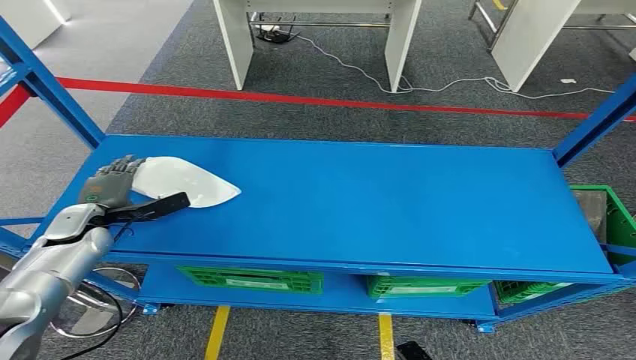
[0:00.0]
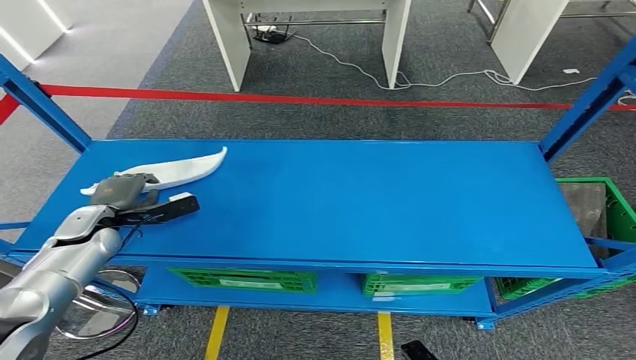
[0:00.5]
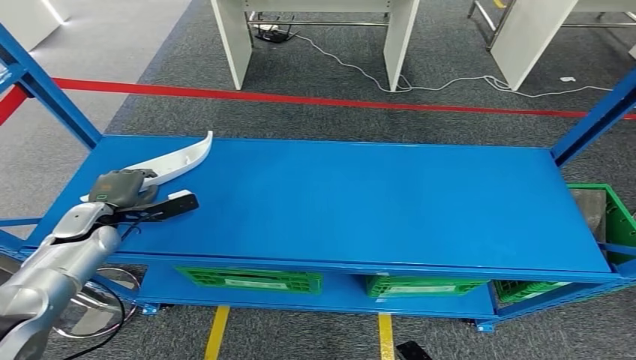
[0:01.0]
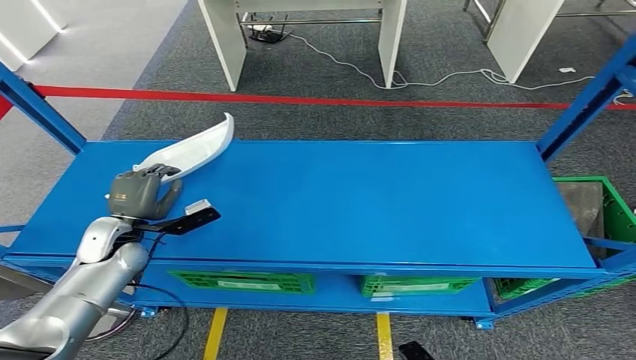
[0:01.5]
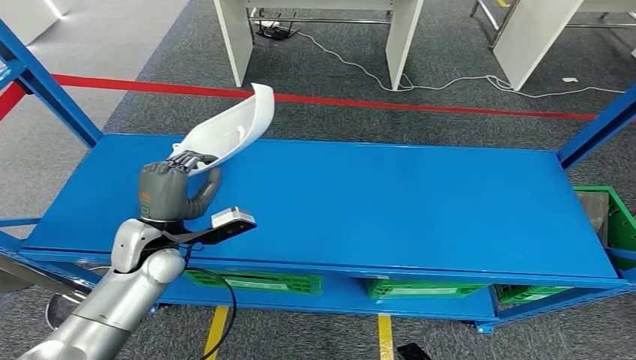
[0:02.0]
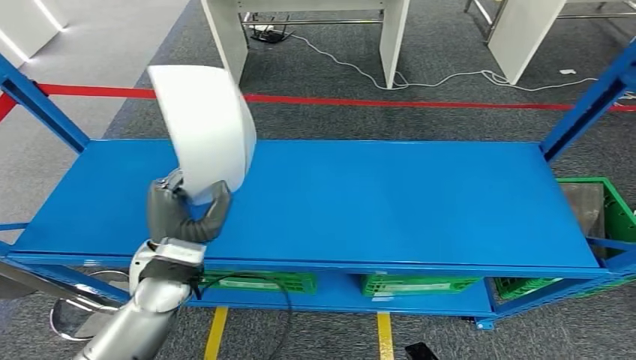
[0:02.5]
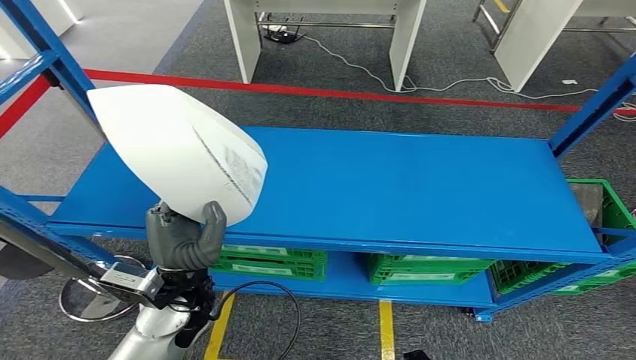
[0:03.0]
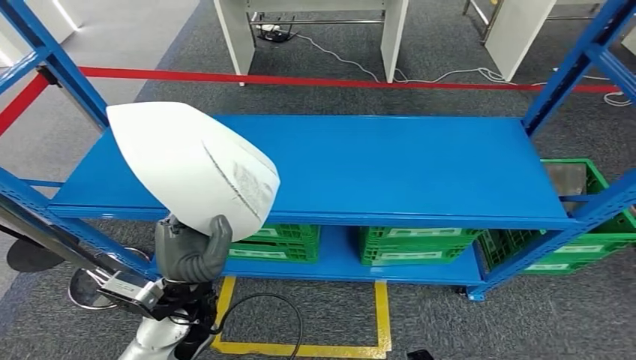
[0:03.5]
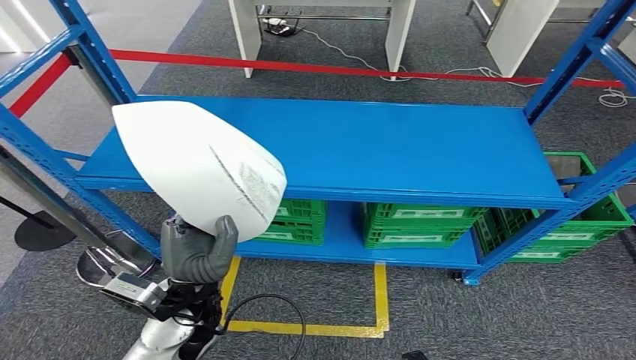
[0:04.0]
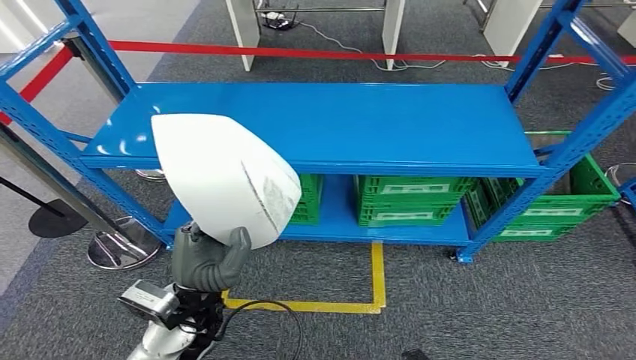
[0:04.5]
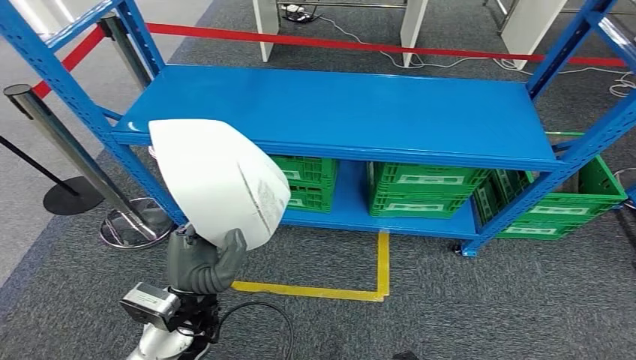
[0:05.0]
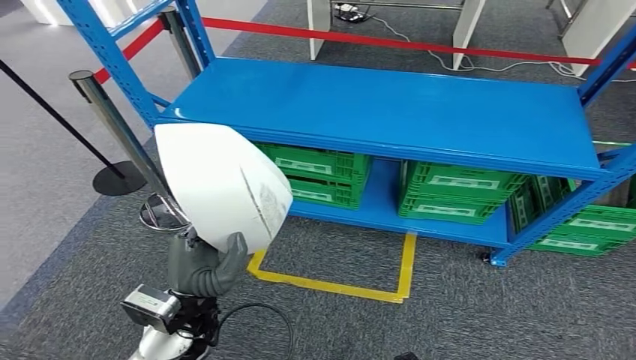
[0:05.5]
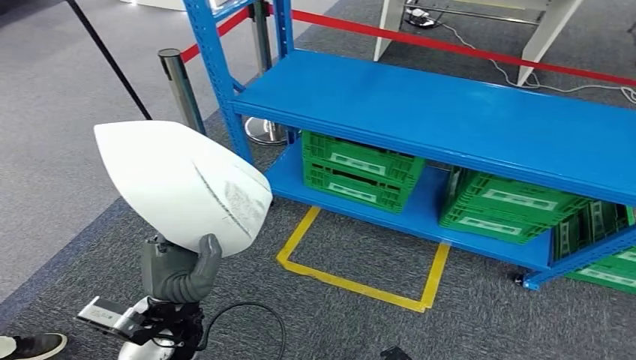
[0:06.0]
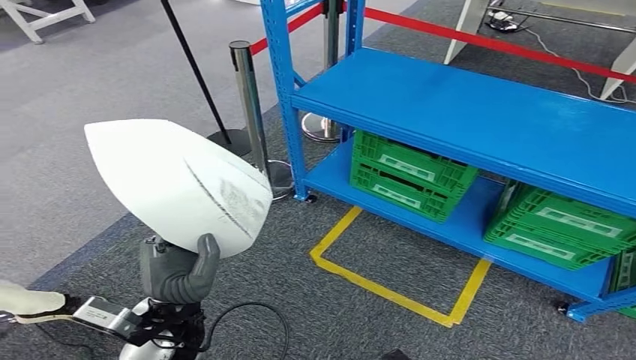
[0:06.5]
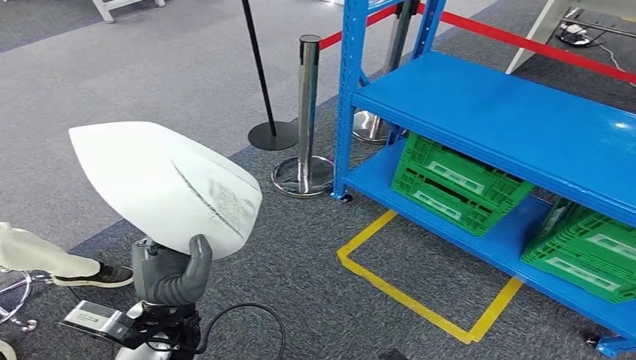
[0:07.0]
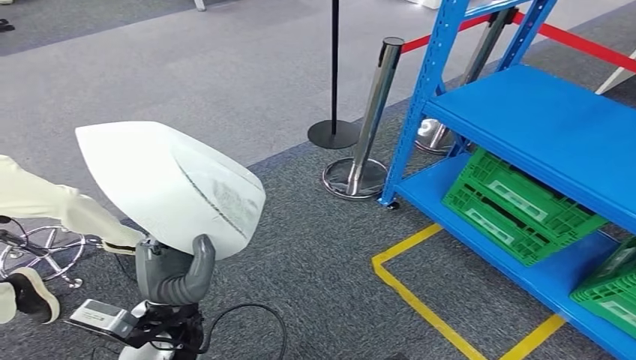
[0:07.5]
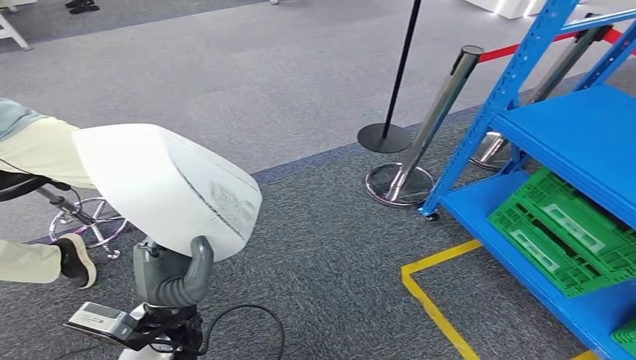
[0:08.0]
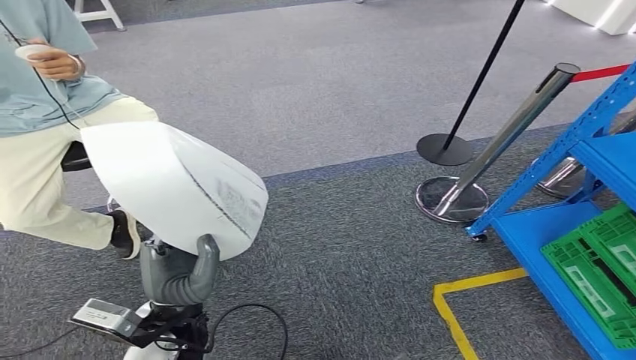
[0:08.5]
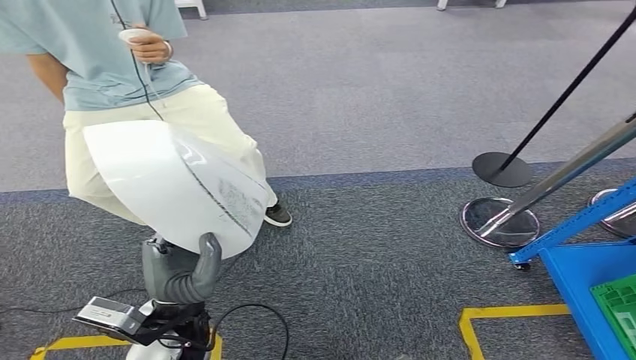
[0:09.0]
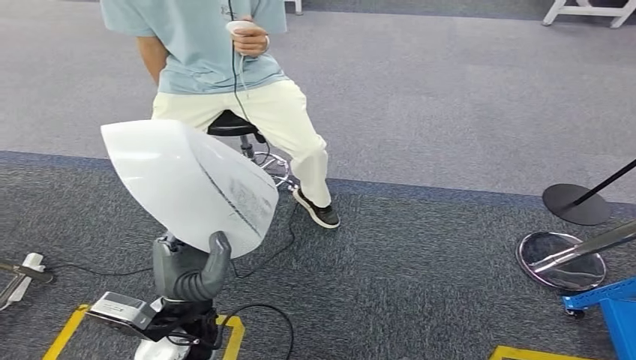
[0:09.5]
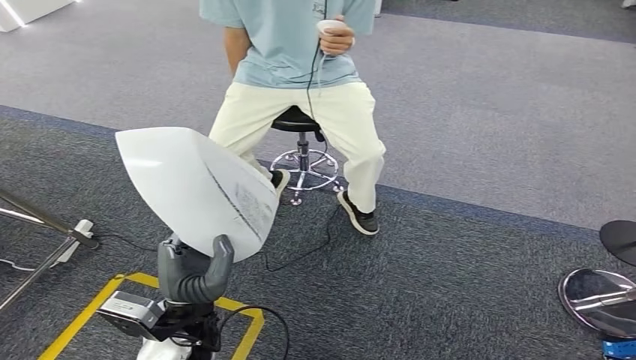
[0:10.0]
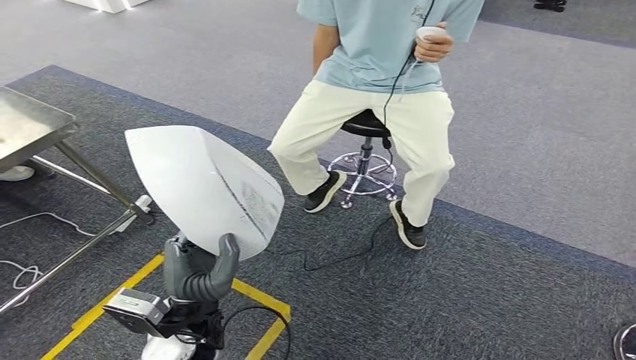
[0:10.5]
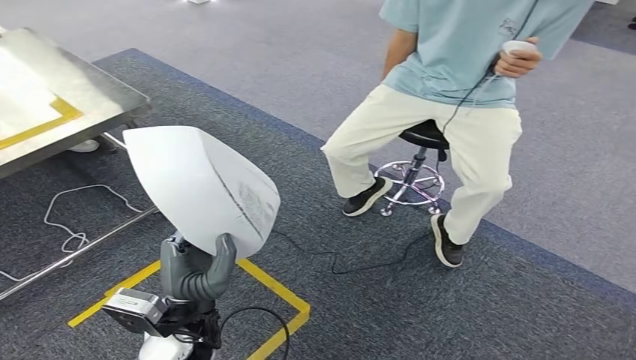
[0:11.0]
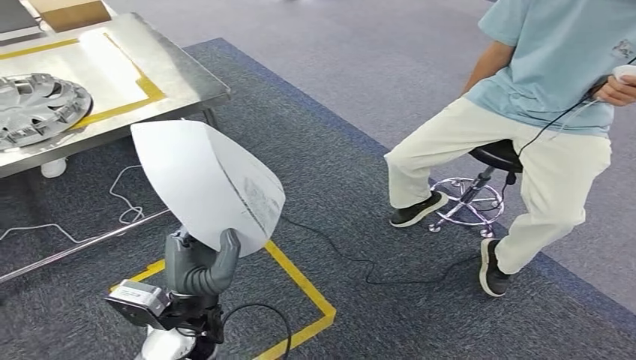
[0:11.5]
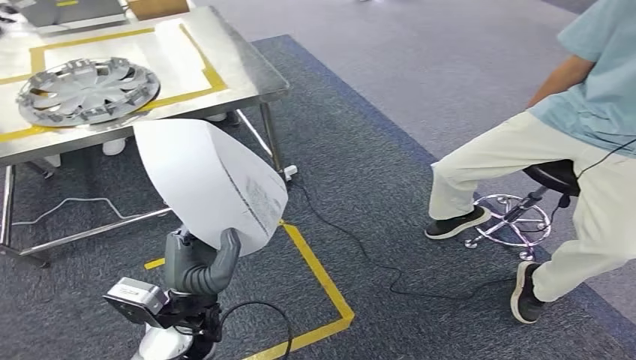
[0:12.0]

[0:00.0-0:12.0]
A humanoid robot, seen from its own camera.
Step, 0:00.0 to 0:03.0: Pick up the small parts from the shelf.

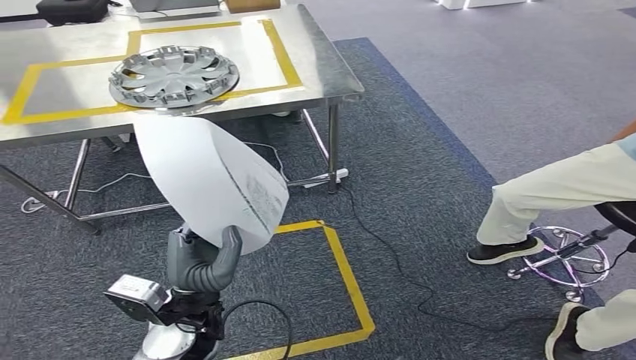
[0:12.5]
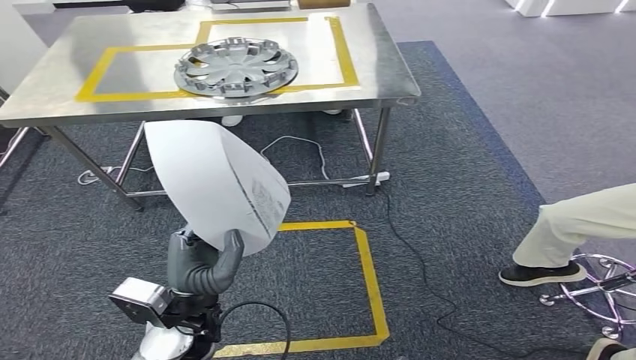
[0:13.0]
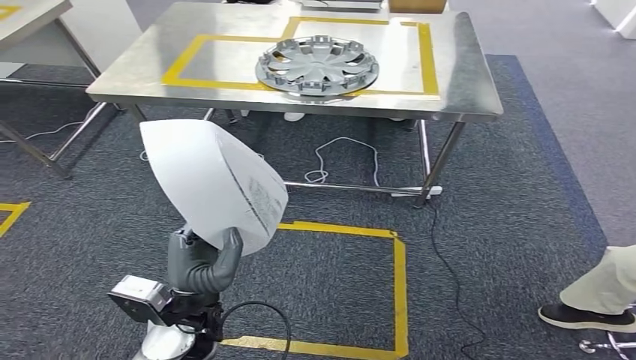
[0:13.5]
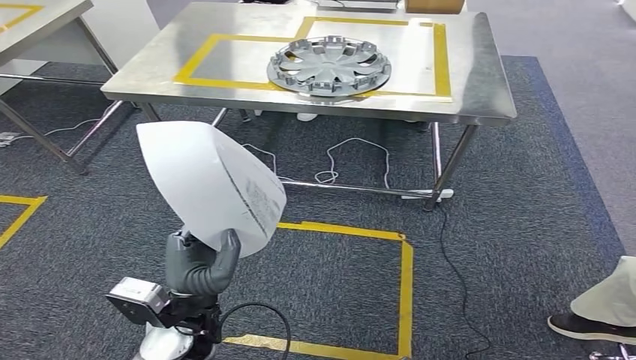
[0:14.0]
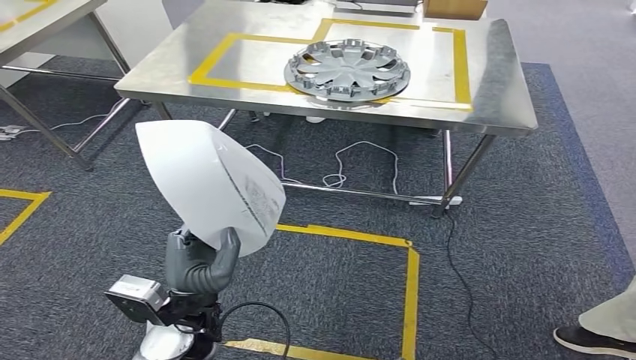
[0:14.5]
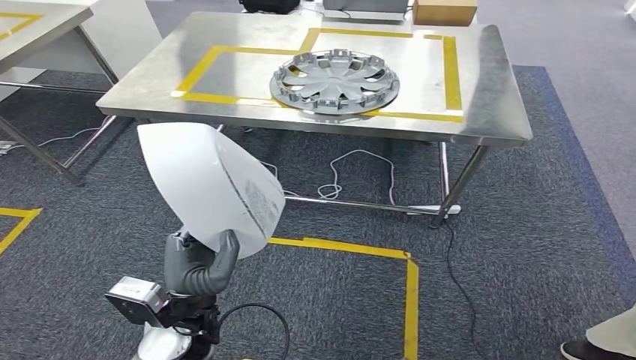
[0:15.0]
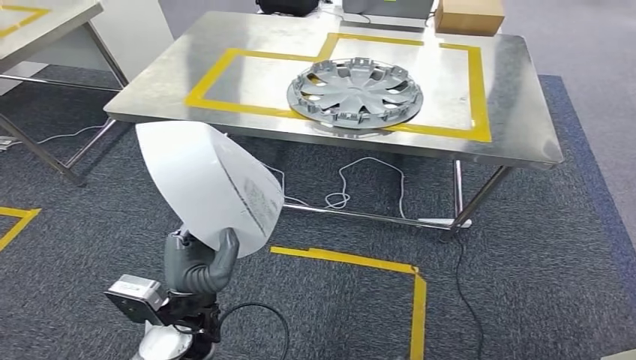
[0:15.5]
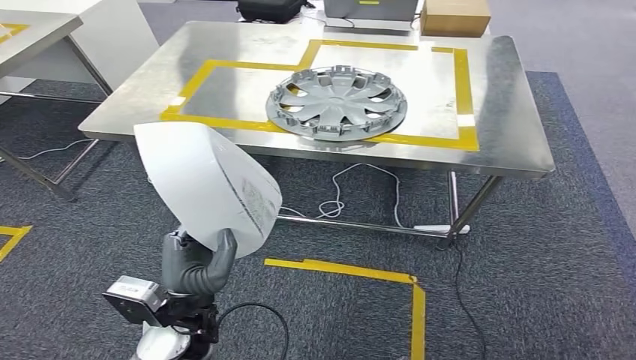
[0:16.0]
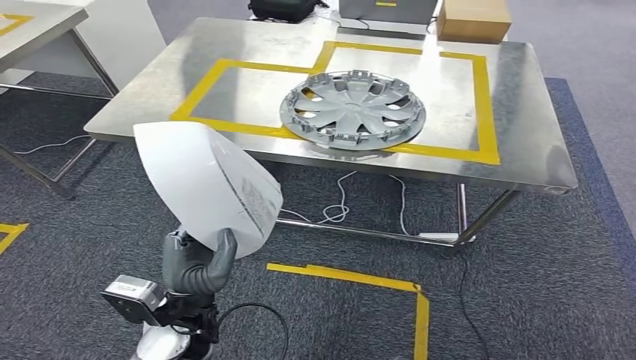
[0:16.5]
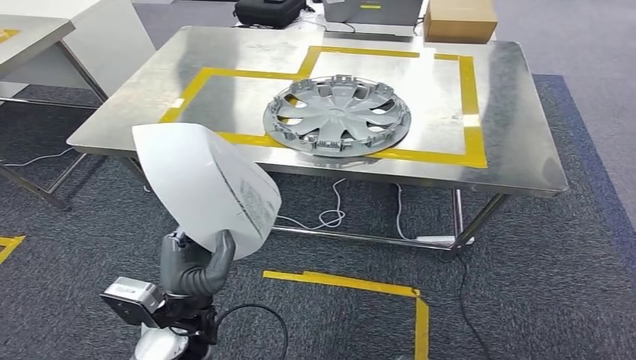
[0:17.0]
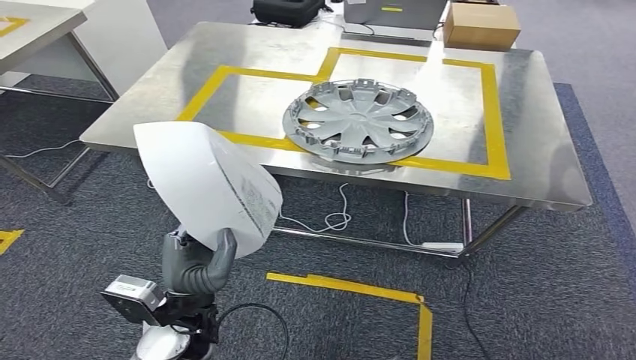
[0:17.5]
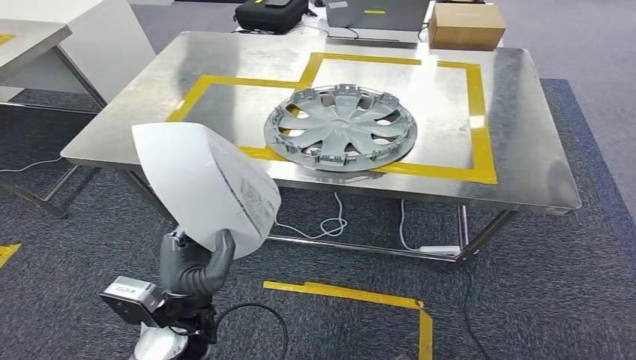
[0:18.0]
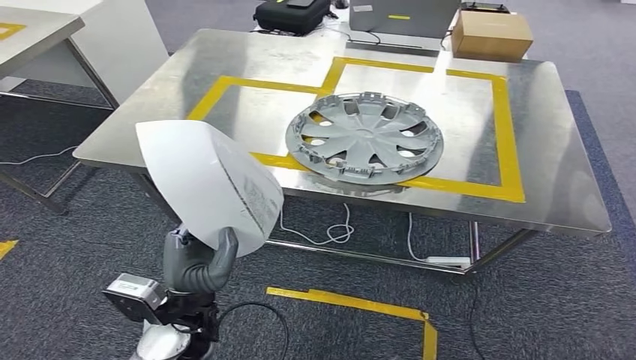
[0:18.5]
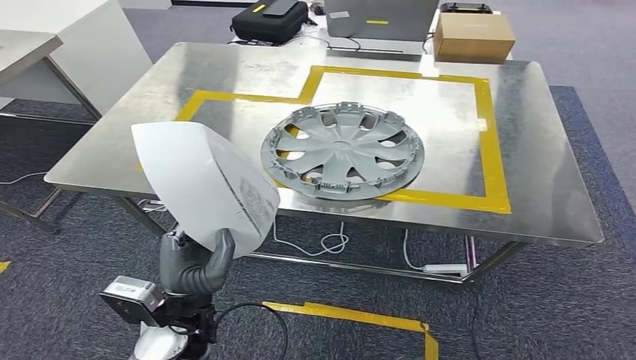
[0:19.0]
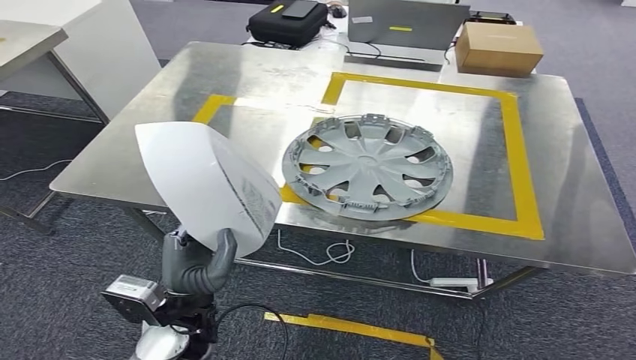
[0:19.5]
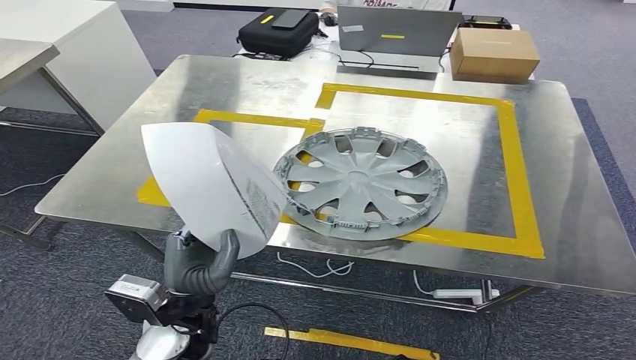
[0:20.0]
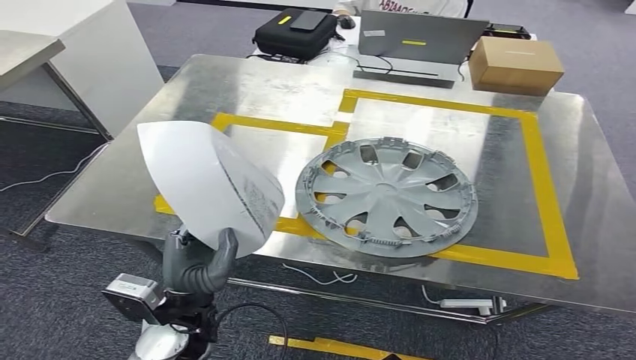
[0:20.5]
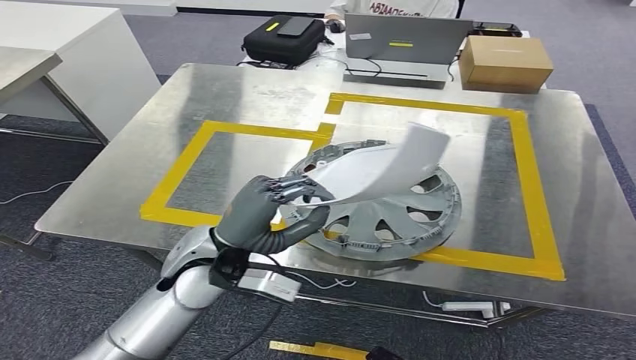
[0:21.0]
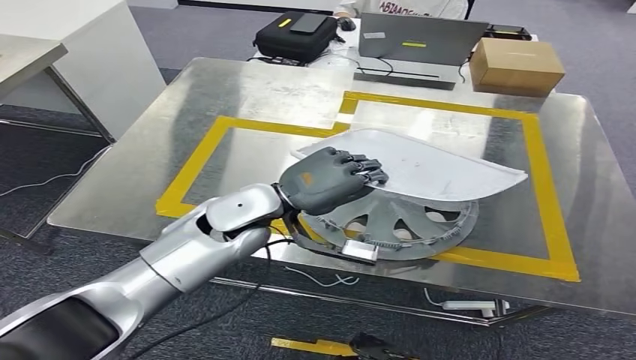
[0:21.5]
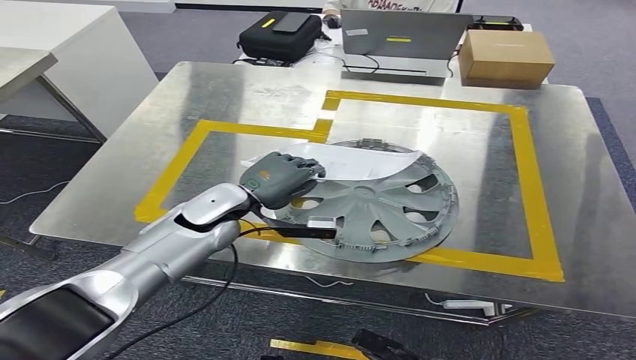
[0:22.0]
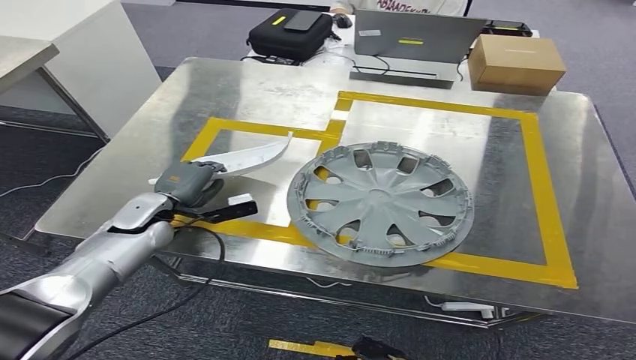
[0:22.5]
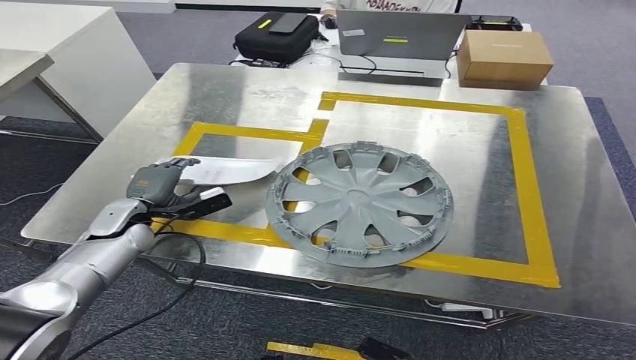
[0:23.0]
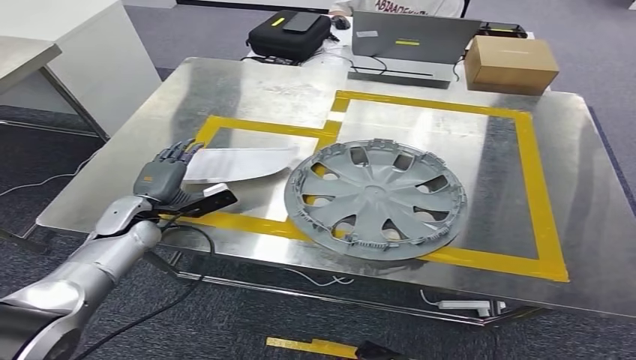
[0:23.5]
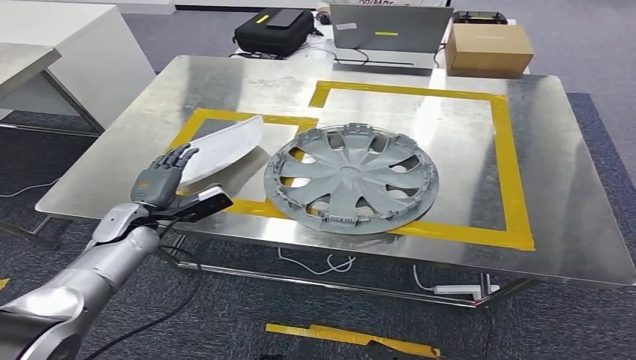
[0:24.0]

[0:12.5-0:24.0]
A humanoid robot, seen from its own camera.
Step, 0:12.5 to 0:15.0: Move the small parts to the workbench.
